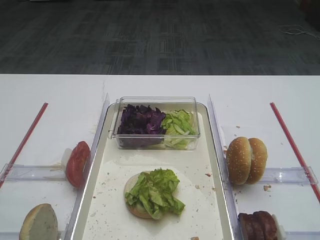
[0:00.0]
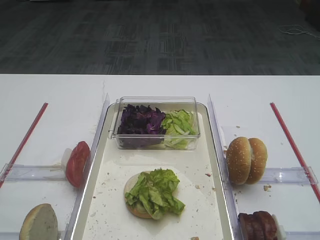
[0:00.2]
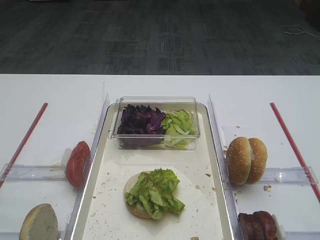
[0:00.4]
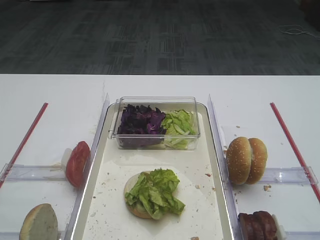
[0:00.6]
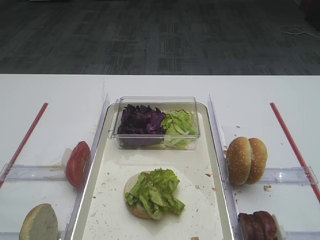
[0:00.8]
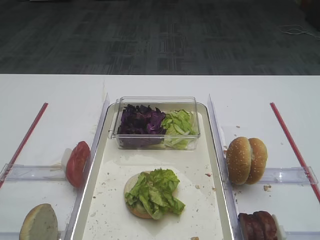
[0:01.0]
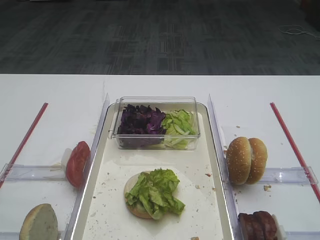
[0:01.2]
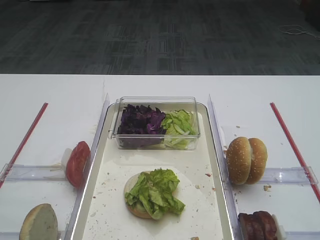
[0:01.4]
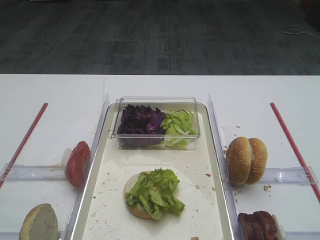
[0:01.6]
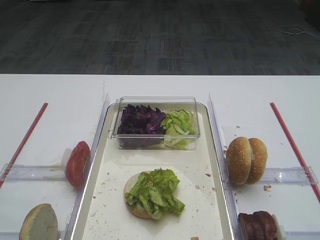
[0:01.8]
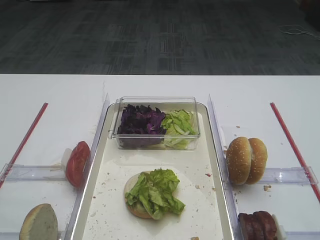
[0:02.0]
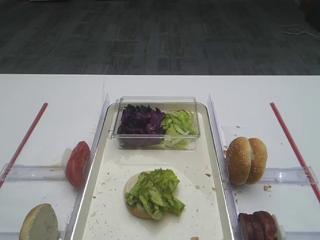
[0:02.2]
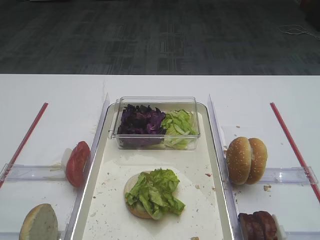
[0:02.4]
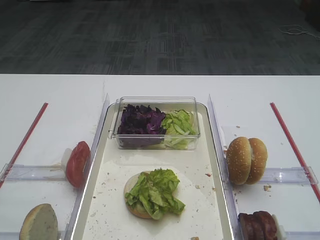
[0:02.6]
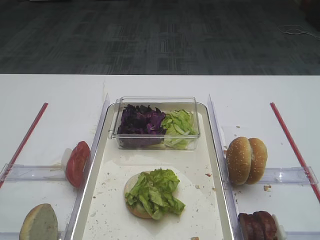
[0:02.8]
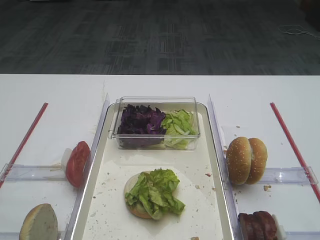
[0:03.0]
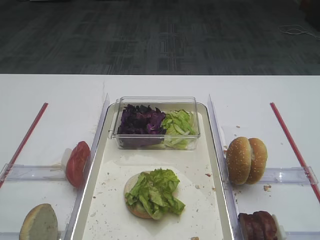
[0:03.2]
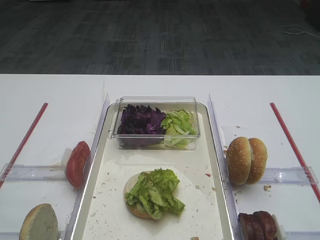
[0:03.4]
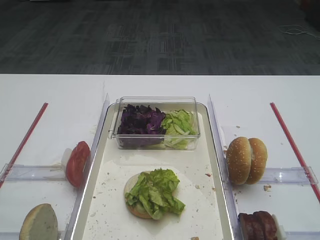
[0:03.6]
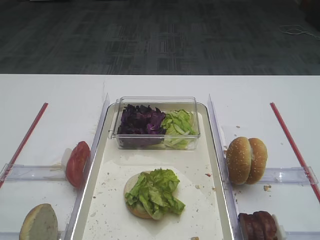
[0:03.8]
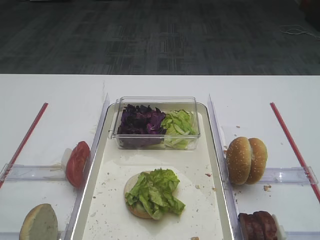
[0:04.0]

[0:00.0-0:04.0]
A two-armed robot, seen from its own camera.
0:00.0 to 0:04.0: The two grippers keep their place.

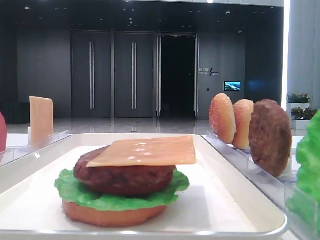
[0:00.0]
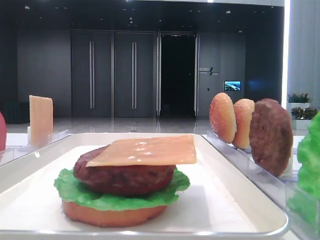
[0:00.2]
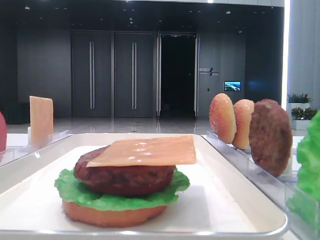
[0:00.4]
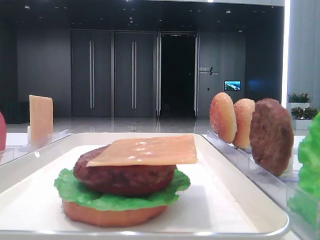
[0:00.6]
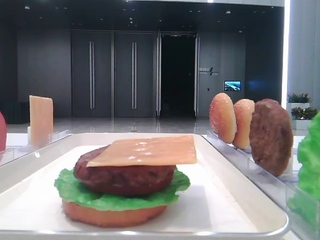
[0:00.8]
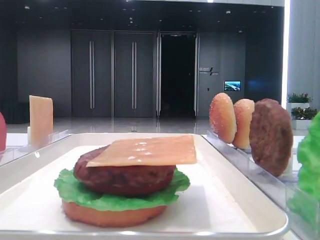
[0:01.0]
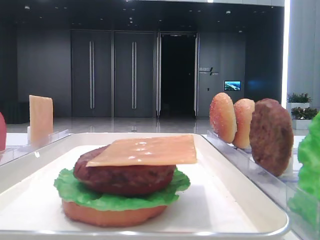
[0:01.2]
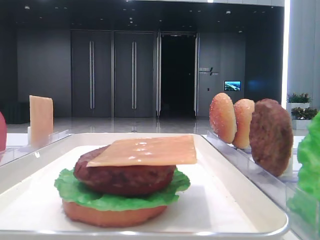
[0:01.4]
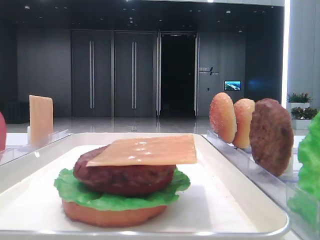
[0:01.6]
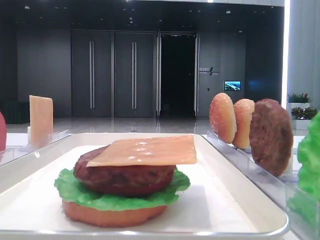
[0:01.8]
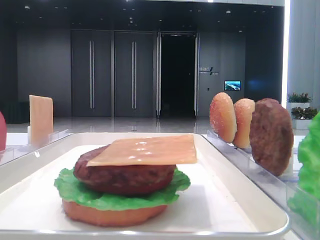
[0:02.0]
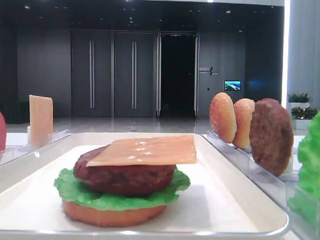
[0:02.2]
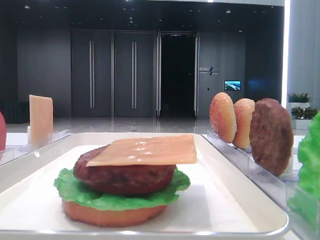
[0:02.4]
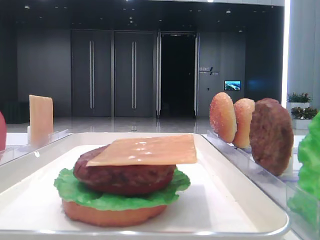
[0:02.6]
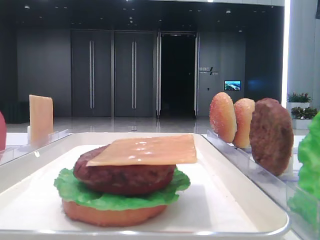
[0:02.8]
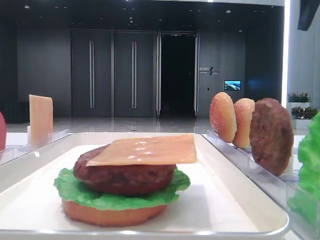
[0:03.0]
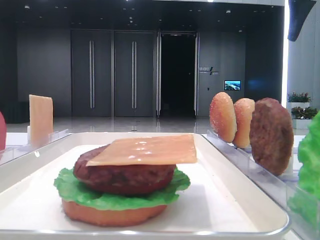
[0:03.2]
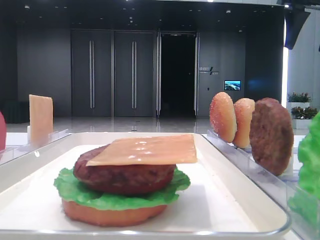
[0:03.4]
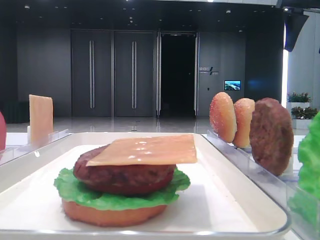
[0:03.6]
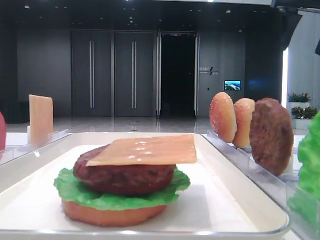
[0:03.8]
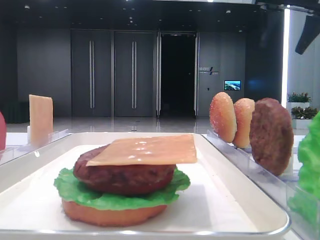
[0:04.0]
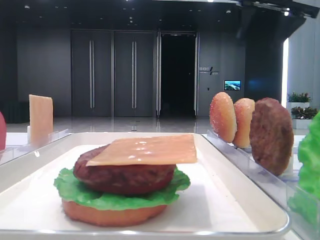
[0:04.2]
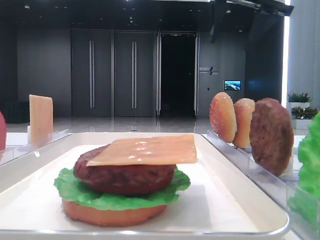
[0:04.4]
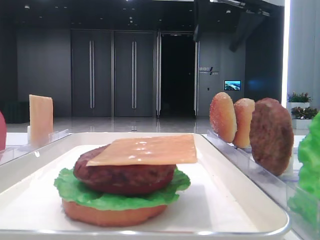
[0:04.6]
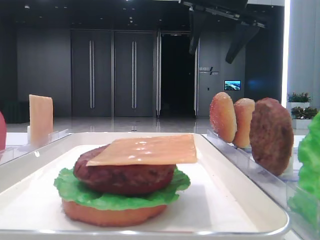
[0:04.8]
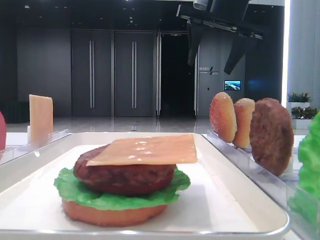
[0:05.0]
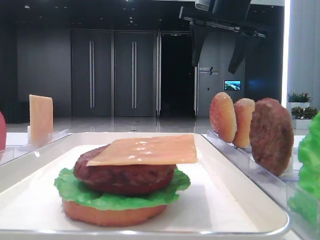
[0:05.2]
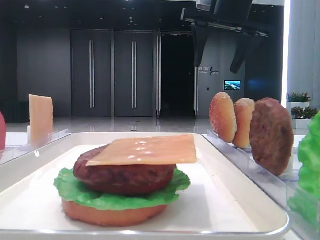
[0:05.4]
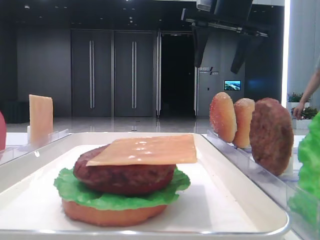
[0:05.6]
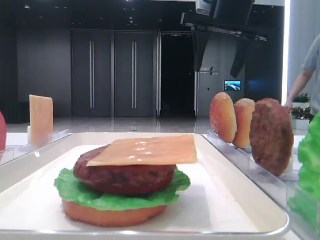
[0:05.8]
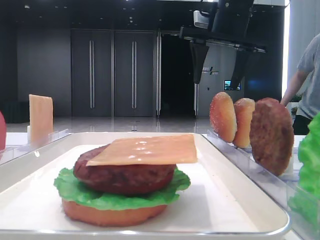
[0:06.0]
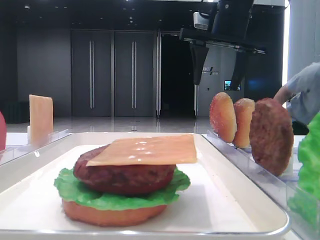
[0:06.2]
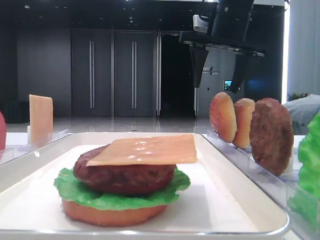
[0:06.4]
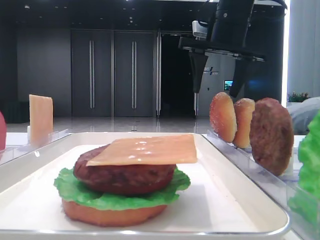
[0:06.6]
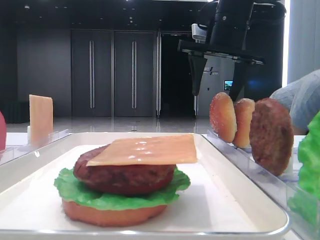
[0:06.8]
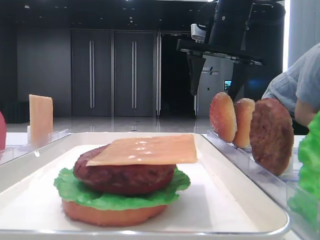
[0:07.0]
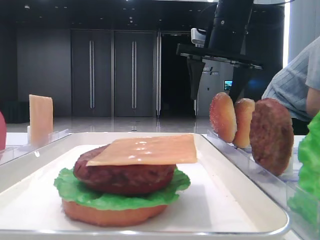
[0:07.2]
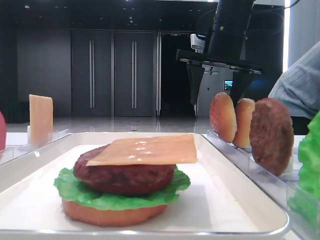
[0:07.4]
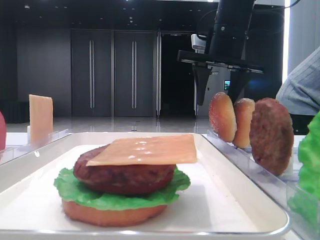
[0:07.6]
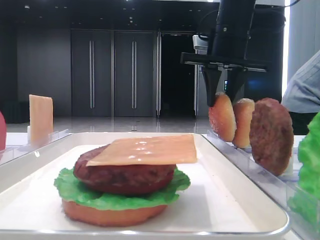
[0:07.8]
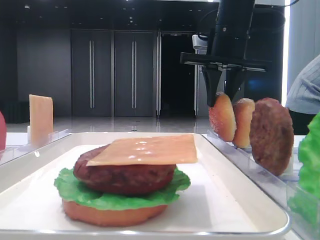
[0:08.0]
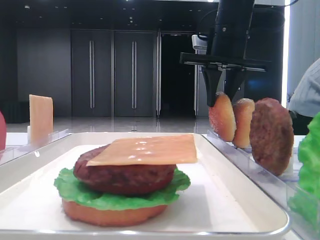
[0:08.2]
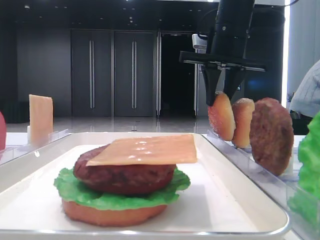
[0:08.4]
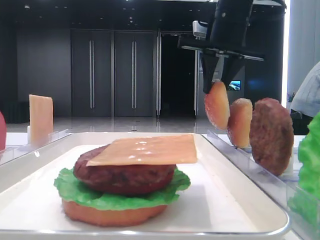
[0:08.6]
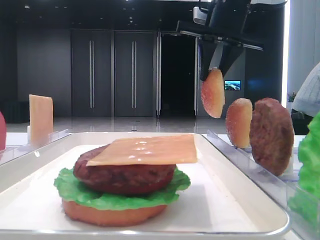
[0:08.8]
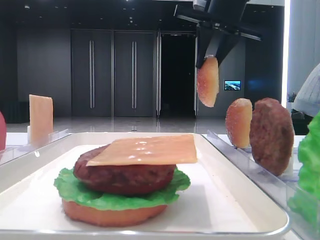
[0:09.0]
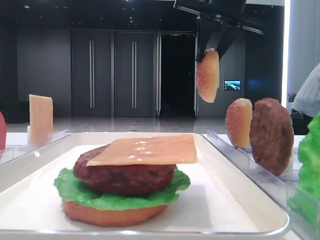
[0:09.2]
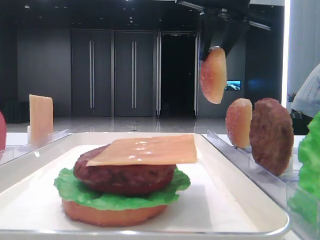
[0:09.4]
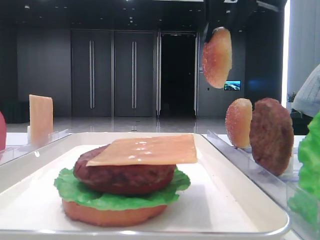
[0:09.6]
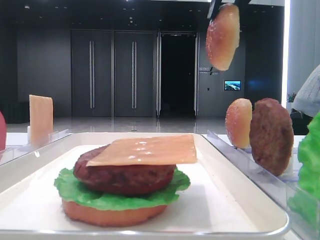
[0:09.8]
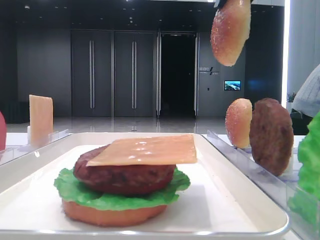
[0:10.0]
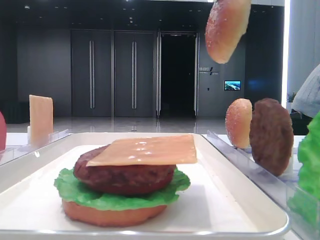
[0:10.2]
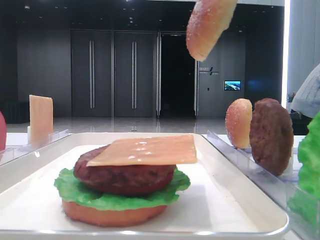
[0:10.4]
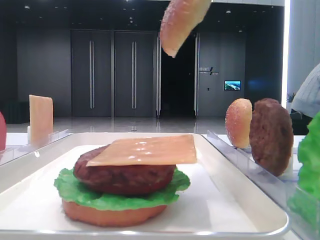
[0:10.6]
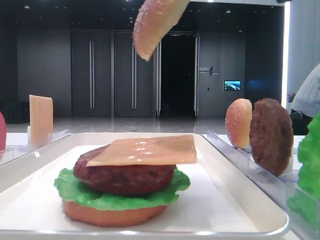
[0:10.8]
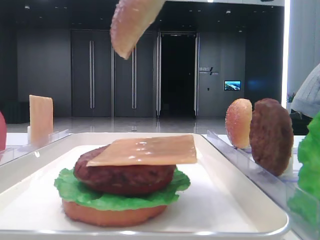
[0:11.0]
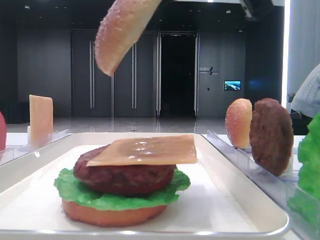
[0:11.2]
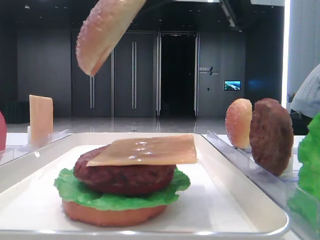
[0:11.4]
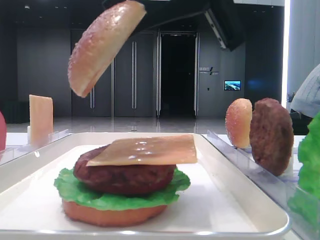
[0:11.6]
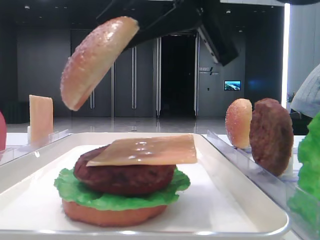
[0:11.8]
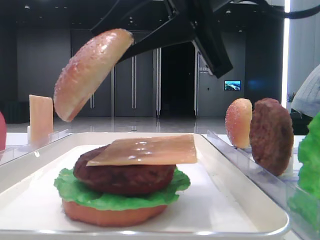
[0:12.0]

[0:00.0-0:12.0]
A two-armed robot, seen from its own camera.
Step, 0:00.0 to 0:08.2: Pick up the top bread slice with the right hand.
0:01.6 to 0:03.0: The right gripper travels forward by about 35 cm.
0:03.0 to 0:04.4: The right gripper heads to the left, covering approximately 15 cm.
0:04.4 to 0:06.0: The right gripper is displaced downward by approximately 5 cm.
0:06.0 to 0:07.6: The grippers stay close to where they were, moving slightly.
0:07.6 to 0:09.0: The right gripper goes about 5 cm upward, and closes up.
0:09.0 to 0:10.4: The right gripper moves backward, about 15 cm.
0:10.4 to 0:12.0: The right gripper heads downward and to the left, covering approximately 10 cm.

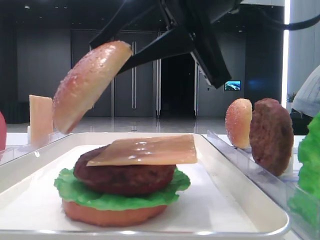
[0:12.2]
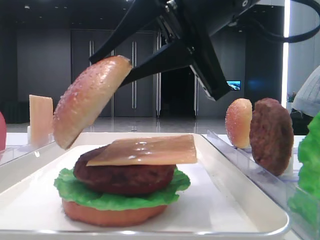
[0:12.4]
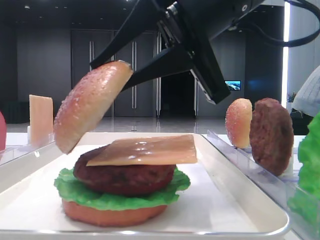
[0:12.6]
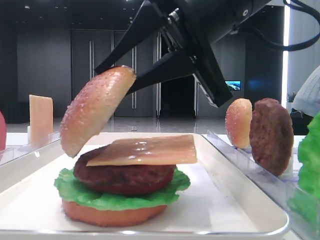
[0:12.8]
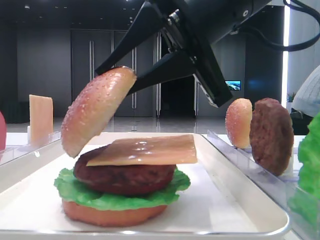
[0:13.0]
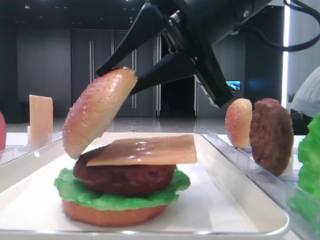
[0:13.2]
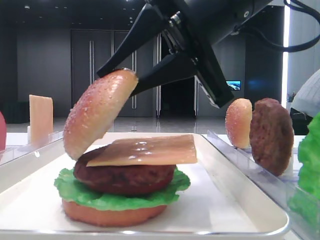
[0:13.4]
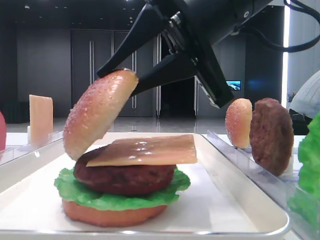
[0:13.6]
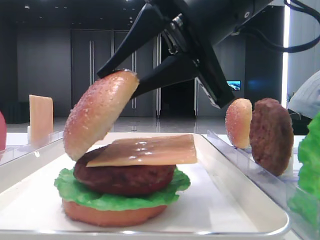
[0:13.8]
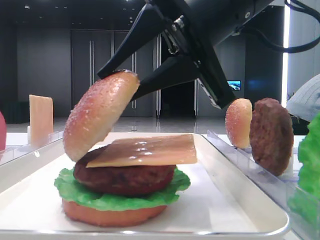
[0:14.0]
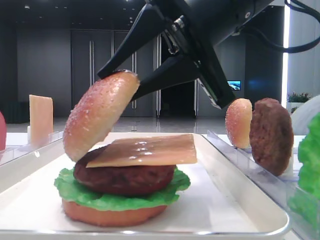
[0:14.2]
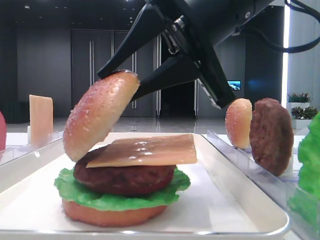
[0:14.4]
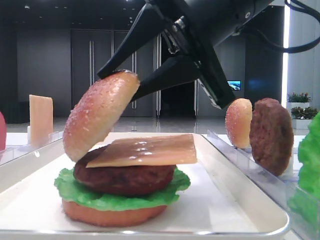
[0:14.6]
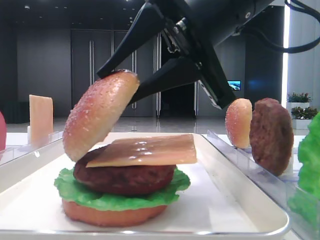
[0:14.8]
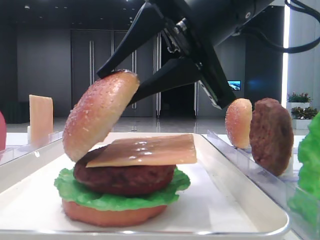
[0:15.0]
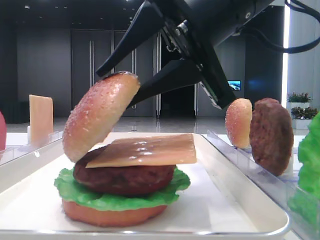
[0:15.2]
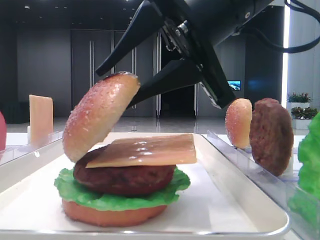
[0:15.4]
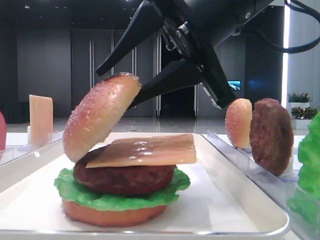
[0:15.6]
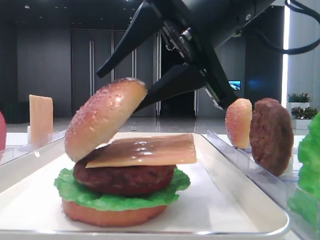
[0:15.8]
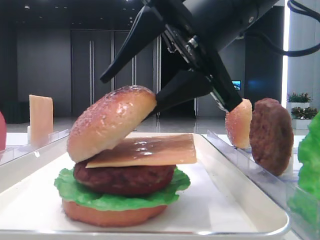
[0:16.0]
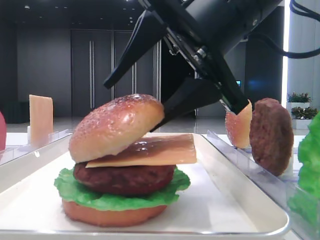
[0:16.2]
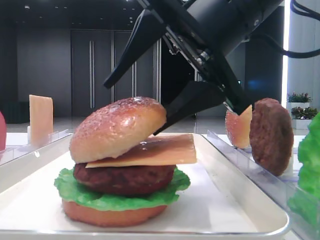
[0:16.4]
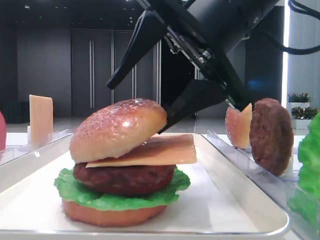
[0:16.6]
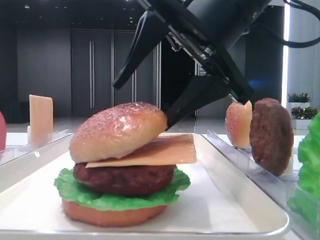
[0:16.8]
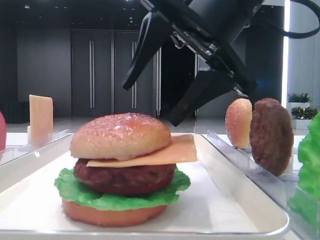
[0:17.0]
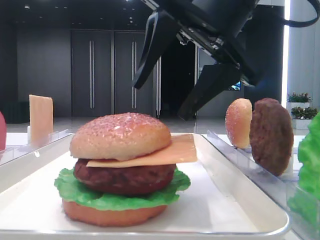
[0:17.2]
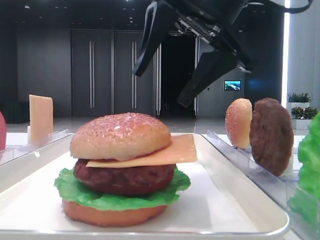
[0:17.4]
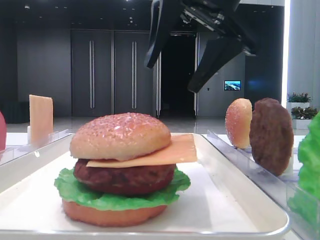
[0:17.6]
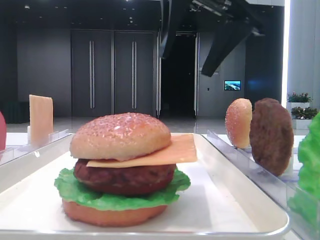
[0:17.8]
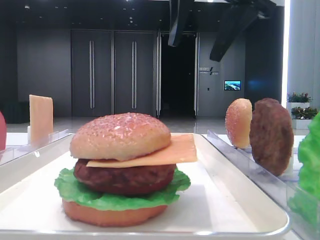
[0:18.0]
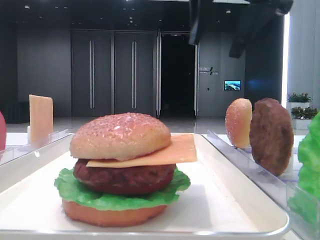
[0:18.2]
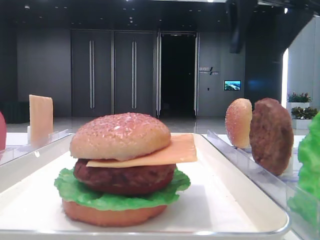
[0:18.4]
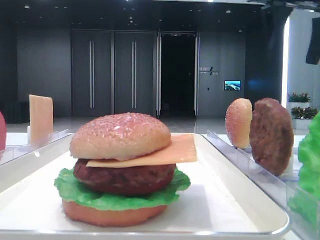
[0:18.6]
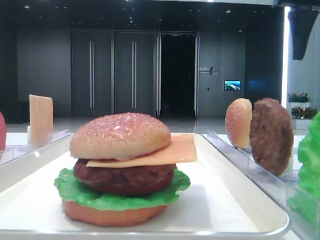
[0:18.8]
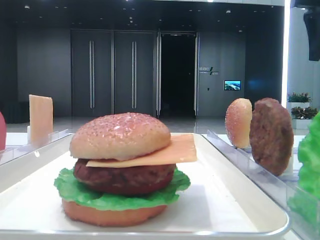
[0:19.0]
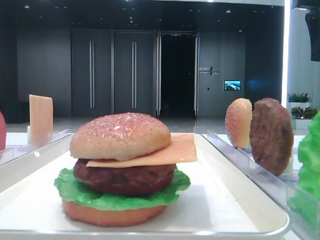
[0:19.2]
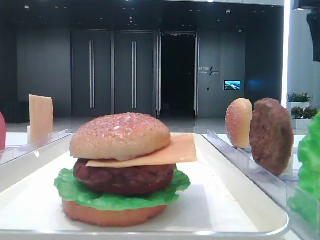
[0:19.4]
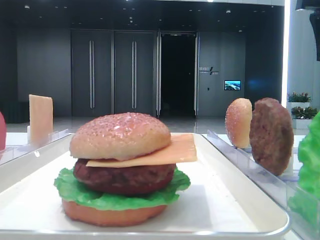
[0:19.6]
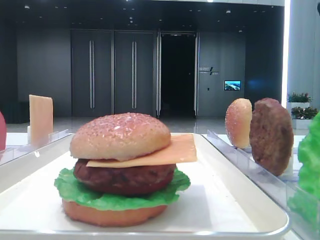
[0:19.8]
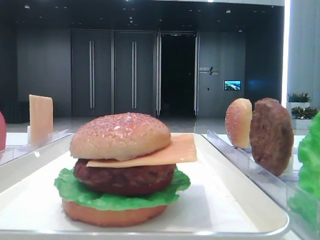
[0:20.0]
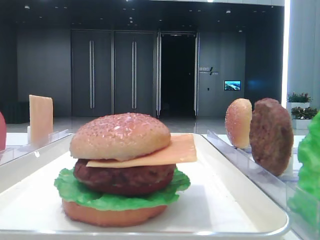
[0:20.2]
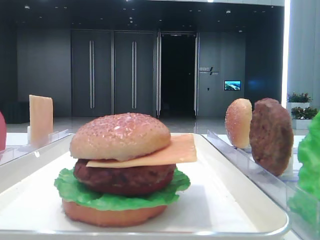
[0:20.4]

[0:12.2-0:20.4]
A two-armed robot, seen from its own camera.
Step, 0:12.2 to 0:16.8: Place the top bread slice on the cheese with the right hand.
0:12.2 to 0:13.8: The grippers move only a little.
0:13.8 to 0:15.4: The two grippers keep their place.
0:15.4 to 0:17.2: The right gripper opens up.
0:17.2 to 0:18.8: The right gripper shifts about 20 cm to the right, forward and upward.
0:18.8 to 0:20.4: The right gripper heads backward, covering approximately 15 cm.
